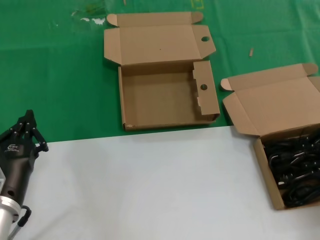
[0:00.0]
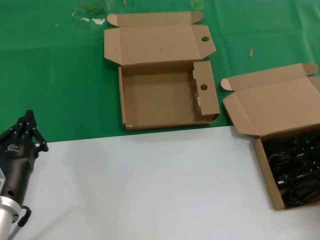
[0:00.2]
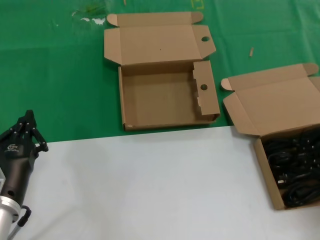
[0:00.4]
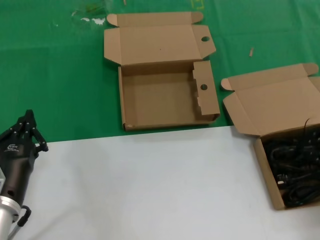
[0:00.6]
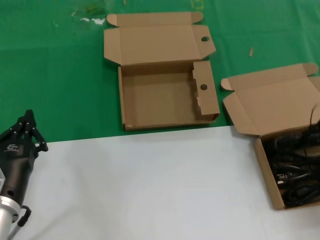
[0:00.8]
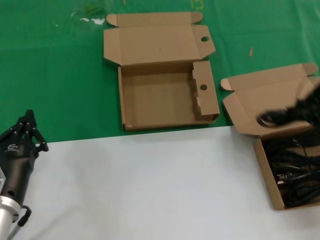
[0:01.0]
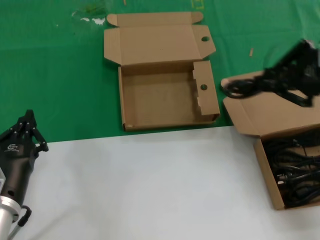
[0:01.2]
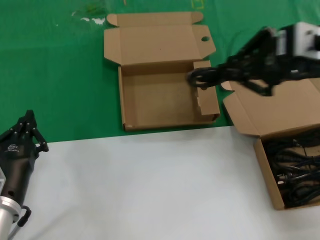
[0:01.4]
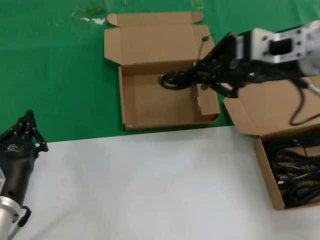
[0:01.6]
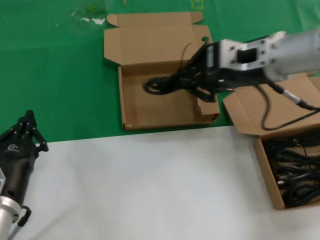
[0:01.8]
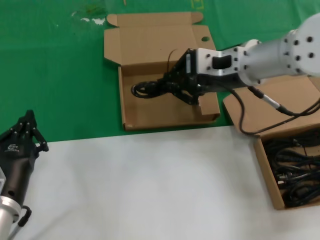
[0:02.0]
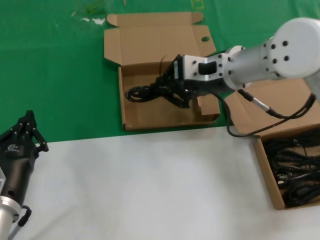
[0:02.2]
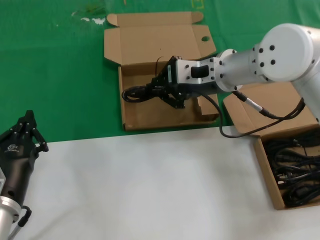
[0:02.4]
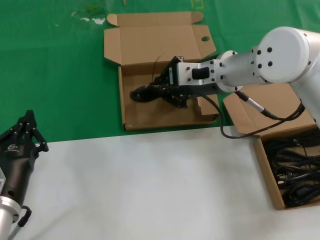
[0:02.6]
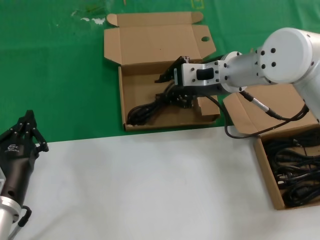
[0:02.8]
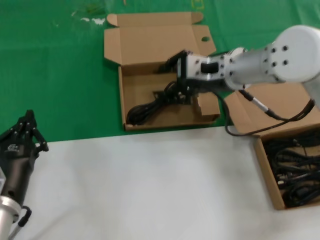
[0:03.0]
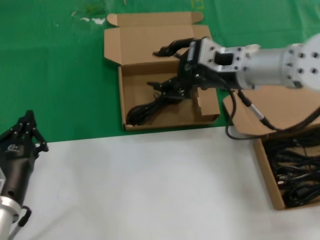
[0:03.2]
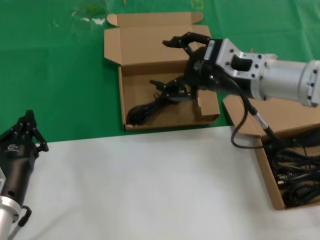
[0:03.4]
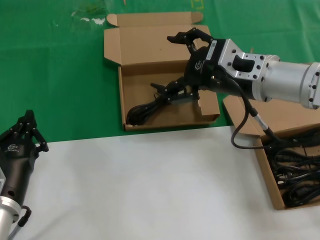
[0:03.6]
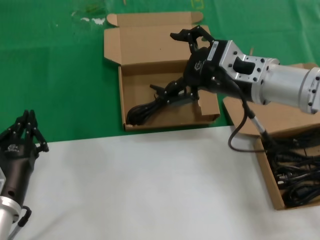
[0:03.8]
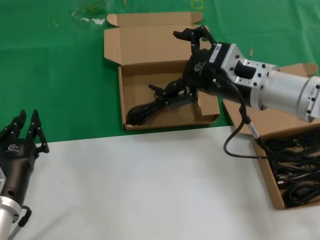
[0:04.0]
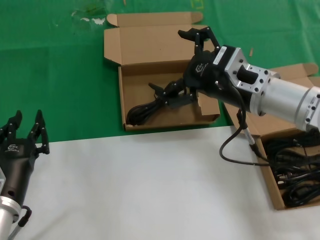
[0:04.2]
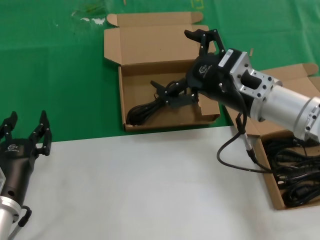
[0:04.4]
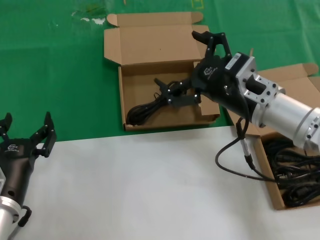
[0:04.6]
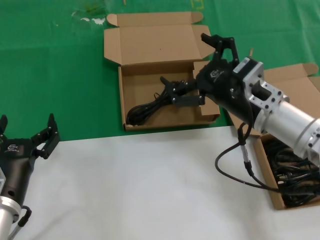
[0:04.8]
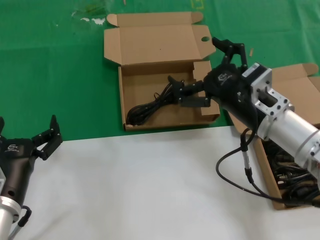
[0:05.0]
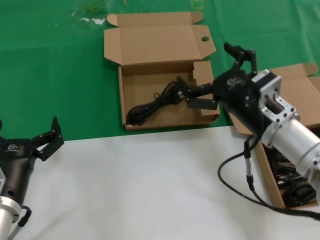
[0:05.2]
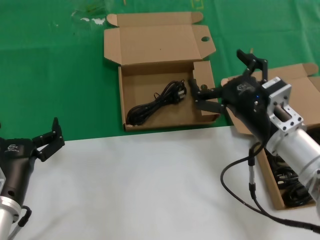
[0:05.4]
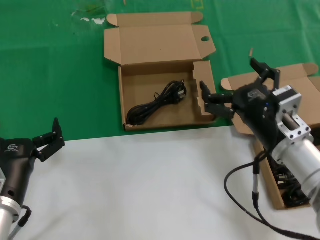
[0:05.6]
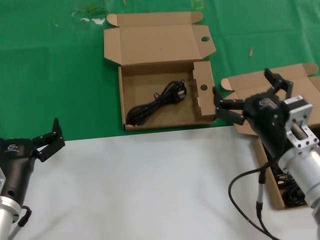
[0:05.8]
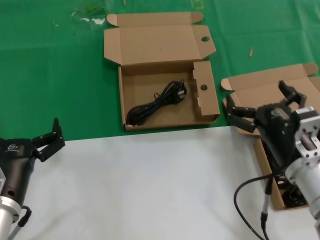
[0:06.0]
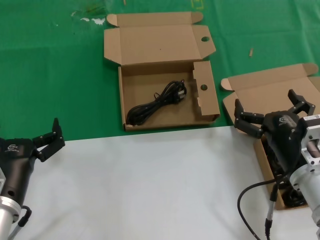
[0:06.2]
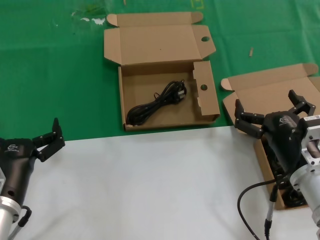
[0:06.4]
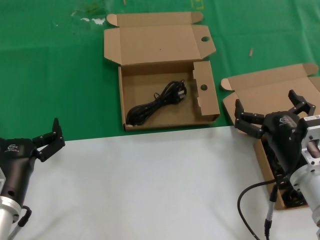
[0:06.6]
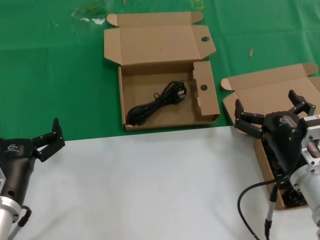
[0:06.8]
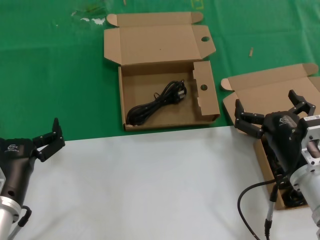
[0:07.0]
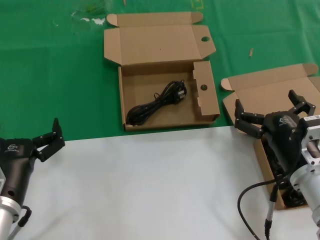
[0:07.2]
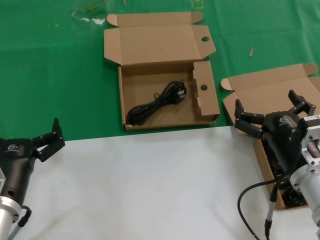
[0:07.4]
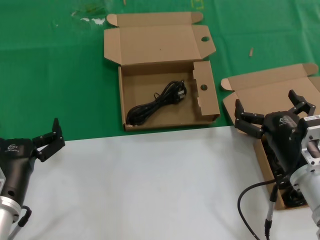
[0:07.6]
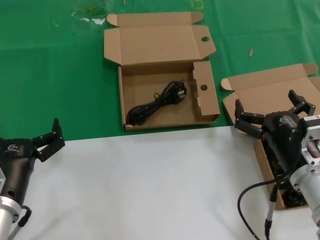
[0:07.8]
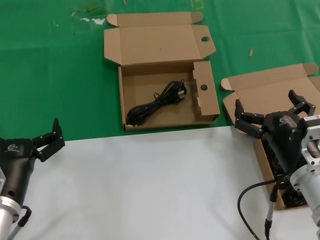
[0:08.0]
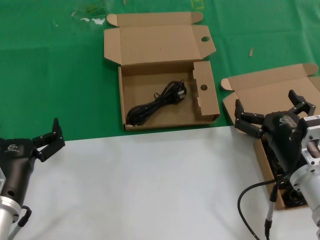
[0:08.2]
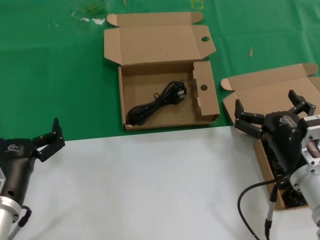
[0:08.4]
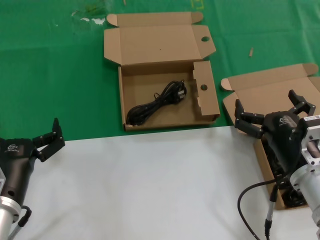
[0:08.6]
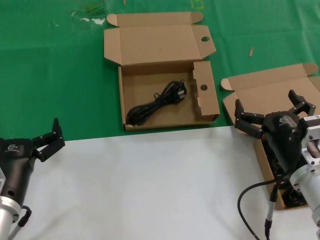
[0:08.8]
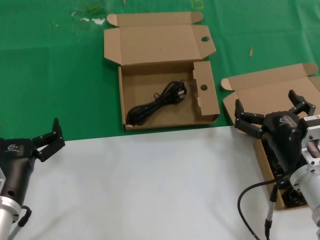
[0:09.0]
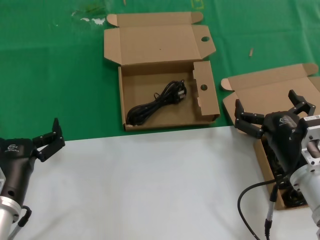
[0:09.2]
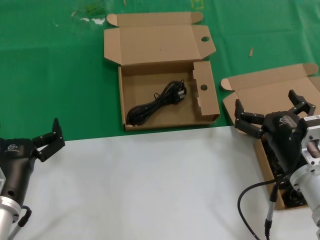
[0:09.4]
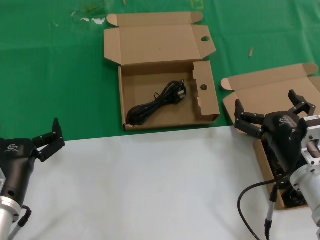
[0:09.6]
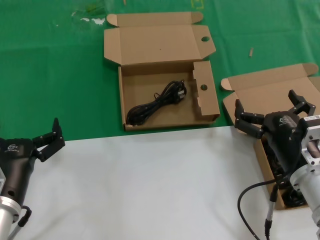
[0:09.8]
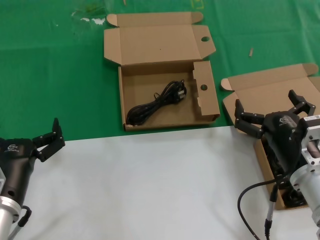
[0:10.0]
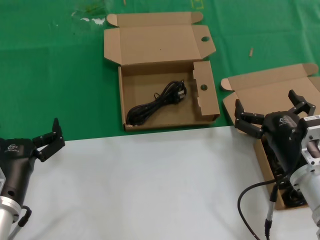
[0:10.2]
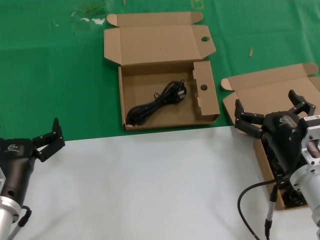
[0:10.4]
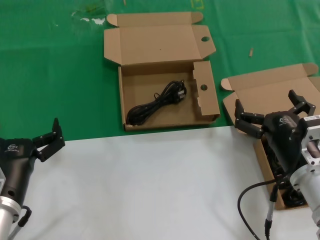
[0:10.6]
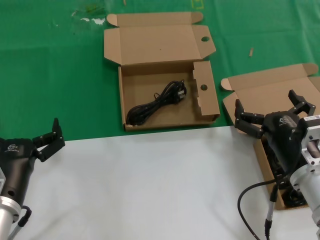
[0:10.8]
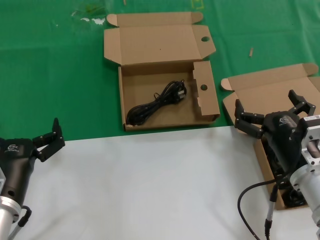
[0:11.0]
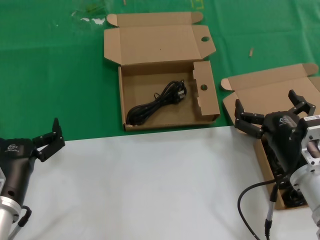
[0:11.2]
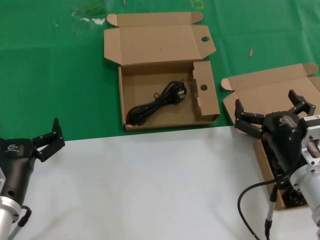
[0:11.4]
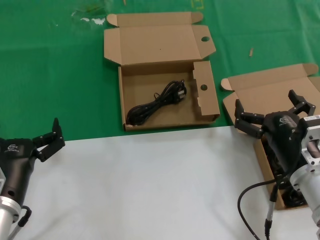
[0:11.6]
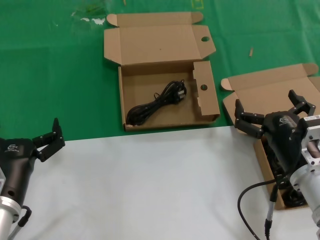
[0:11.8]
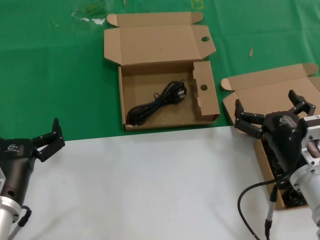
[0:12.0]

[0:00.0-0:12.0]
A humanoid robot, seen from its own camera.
Task of the whole recording: take the parts from the box containing them and put them into an empty box.
Step, 0:00.4 to 0:02.6: Place the data cable in the another box.
0:00.0 to 0:01.6: The right hand moves to the left and upward, roughly 20 cm.
0:01.6 to 0:03.0: The right hand moves forward, downward and to the left, about 15 cm.
0:03.0 to 0:04.4: The right hand moves backward, some 10 cm.
0:04.4 to 0:06.0: The right hand shifts roughly 15 cm downward and backward.
0:06.0 to 0:07.6: The hands stay close to where they were, moving slightly.
0:07.6 to 0:12.0: Neither hand changes place.

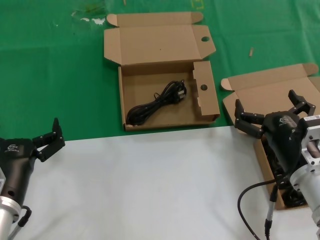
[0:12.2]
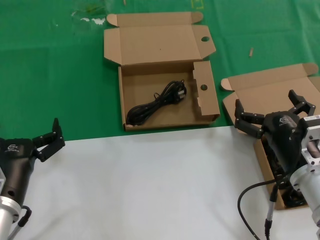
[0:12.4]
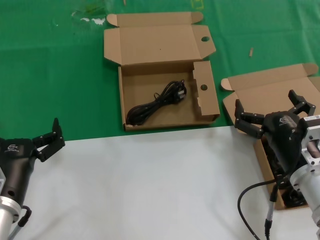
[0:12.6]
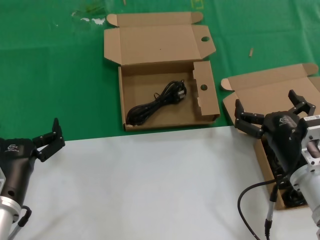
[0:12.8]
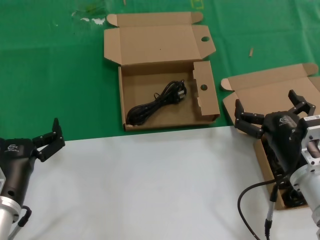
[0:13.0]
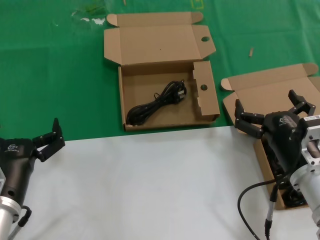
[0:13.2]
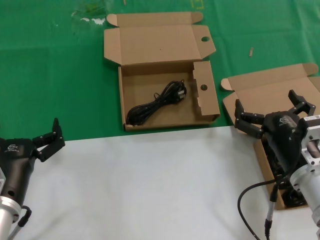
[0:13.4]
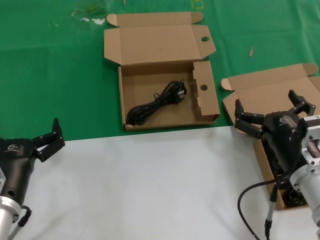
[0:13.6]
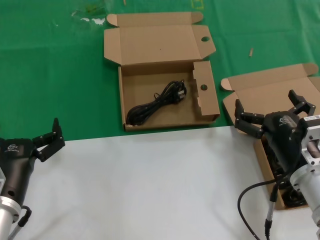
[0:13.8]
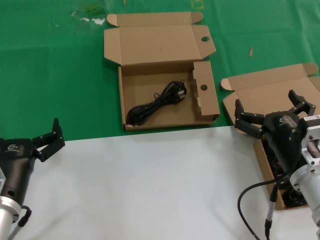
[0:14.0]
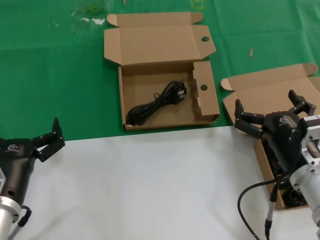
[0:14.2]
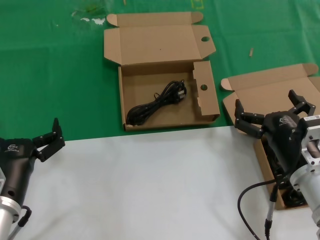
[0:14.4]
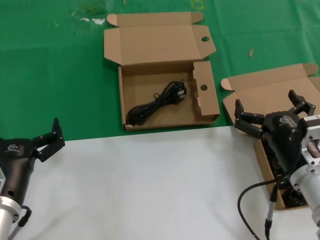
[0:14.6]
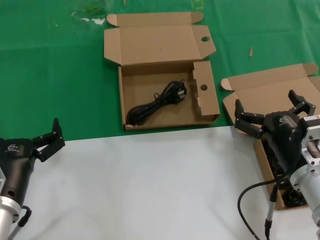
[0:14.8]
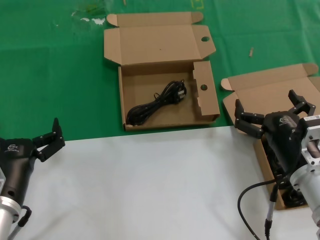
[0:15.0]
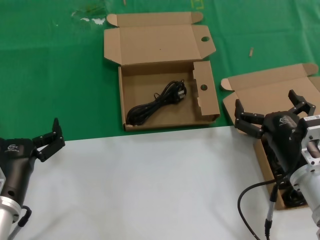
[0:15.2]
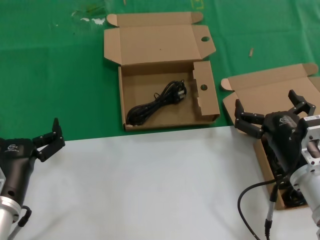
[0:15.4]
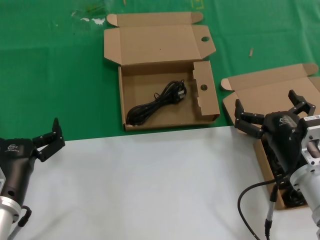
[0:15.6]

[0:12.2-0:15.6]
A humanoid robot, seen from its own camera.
Task of the whole recording: take the parts from the box containing them and put them into an empty box.
0:12.2 to 0:15.6: The two hands keep their place.
